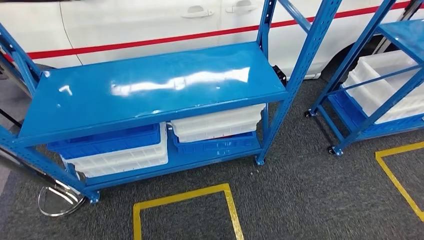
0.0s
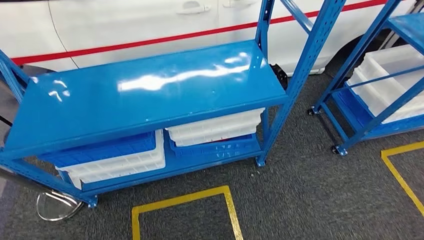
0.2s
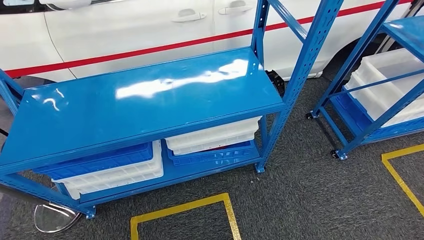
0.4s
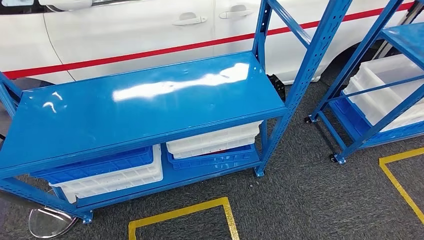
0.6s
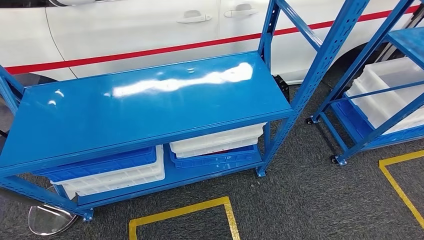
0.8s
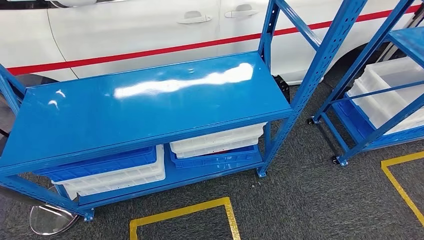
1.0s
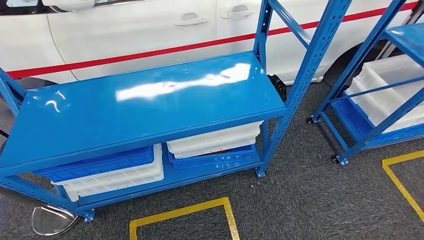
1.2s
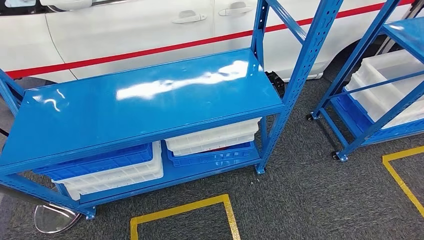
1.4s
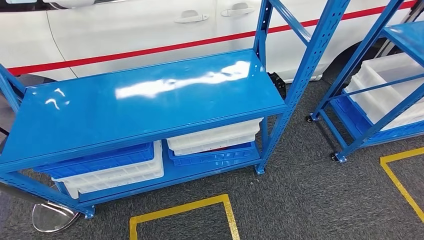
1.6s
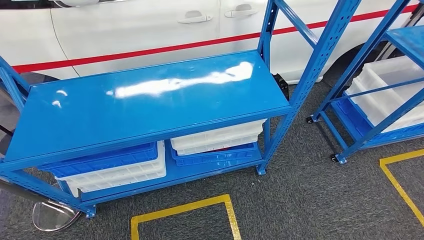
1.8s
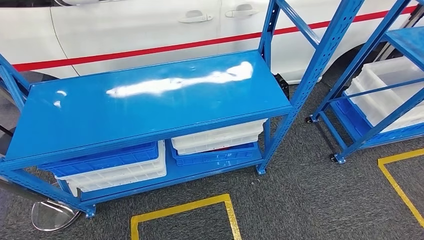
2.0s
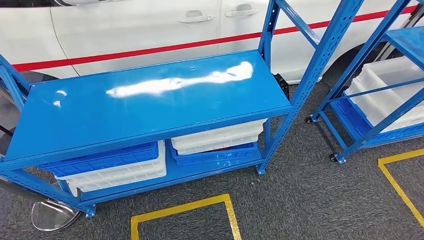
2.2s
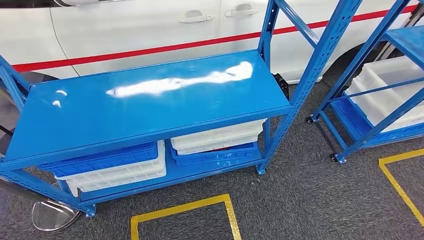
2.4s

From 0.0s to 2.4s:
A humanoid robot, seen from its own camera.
Step, from 0.0s to 2.2s: Move to the initial position of the shelf.
